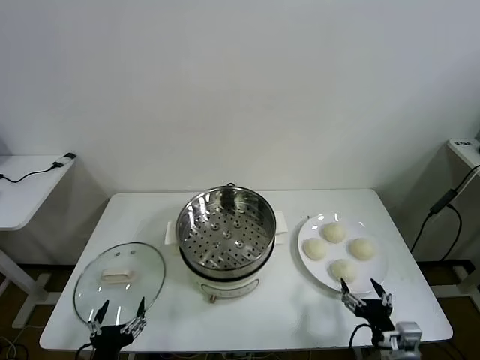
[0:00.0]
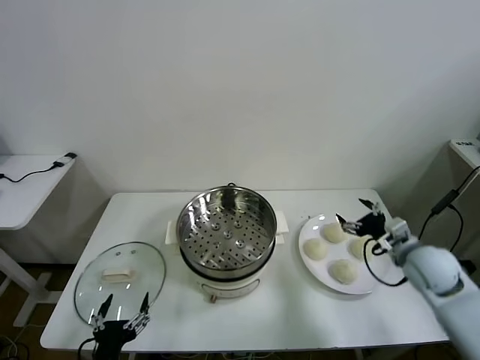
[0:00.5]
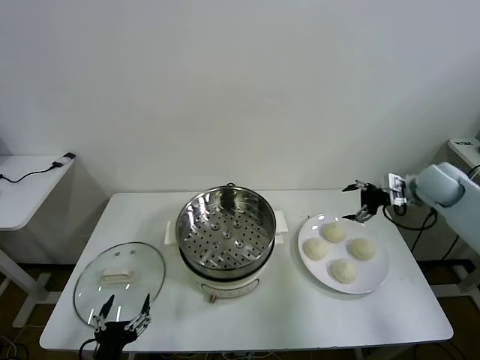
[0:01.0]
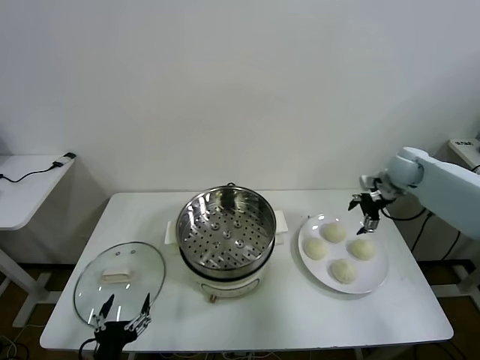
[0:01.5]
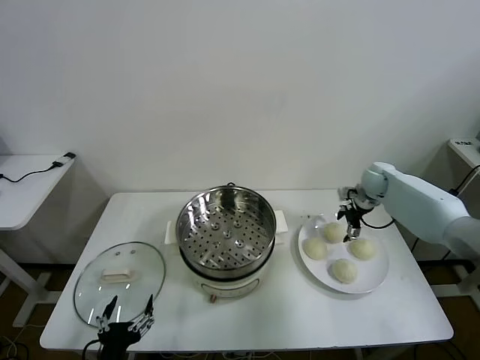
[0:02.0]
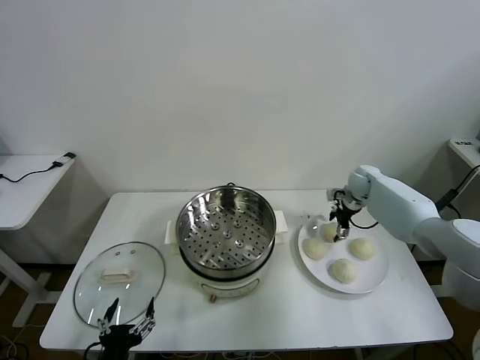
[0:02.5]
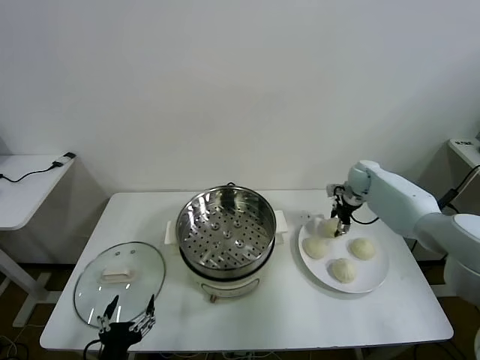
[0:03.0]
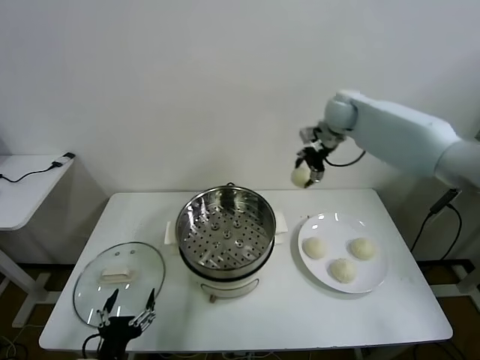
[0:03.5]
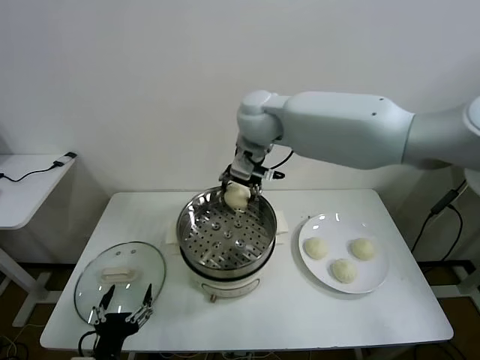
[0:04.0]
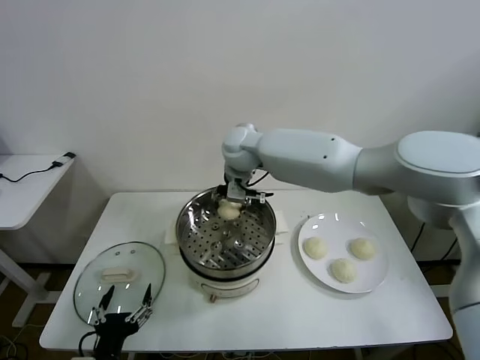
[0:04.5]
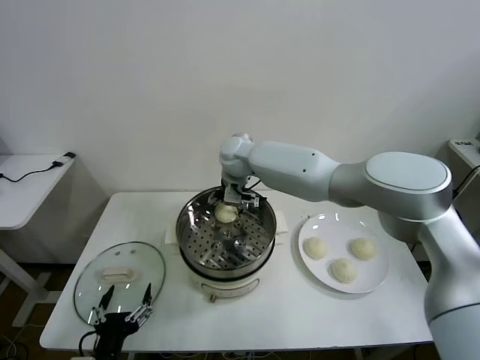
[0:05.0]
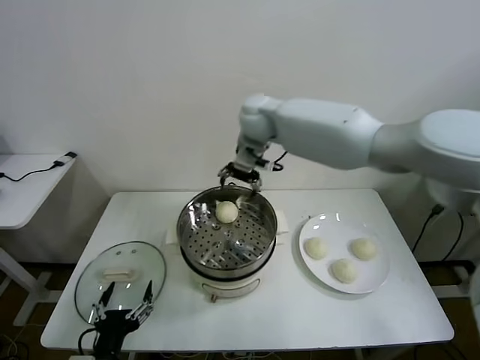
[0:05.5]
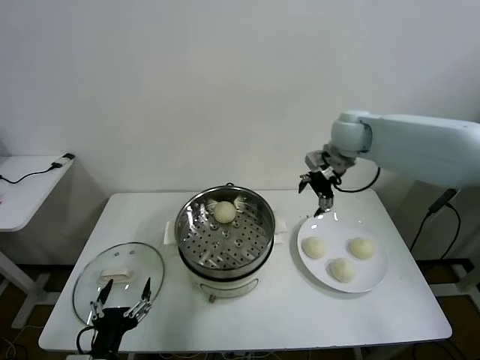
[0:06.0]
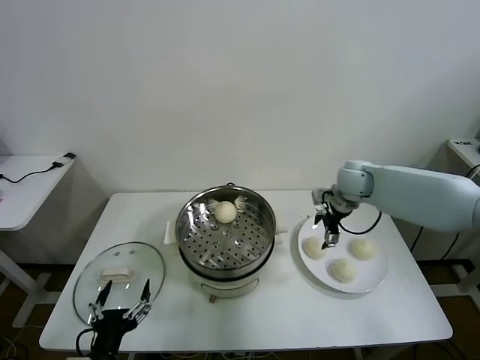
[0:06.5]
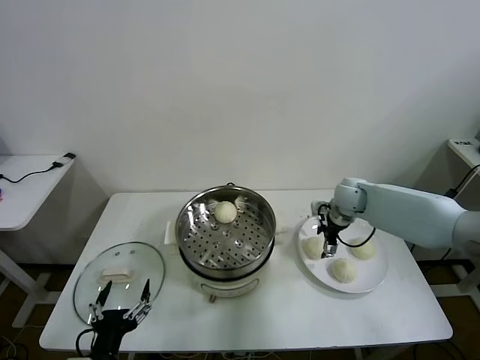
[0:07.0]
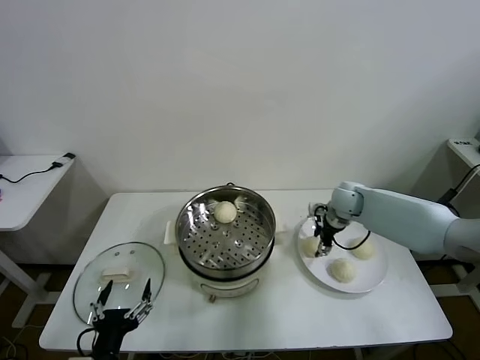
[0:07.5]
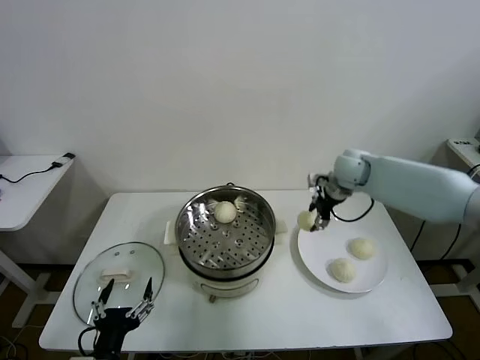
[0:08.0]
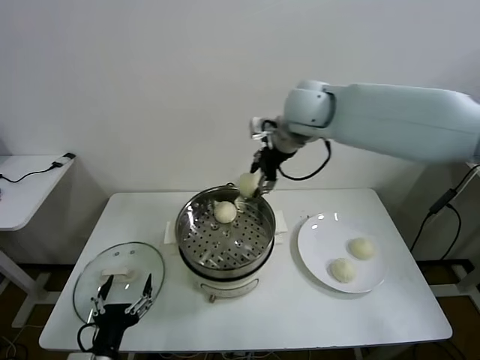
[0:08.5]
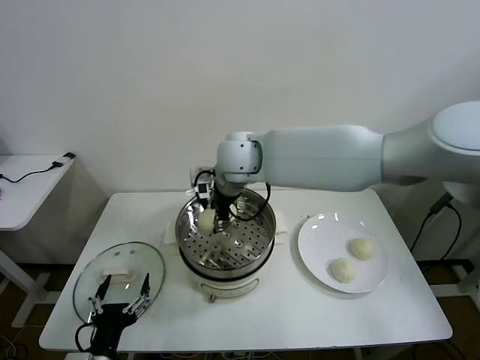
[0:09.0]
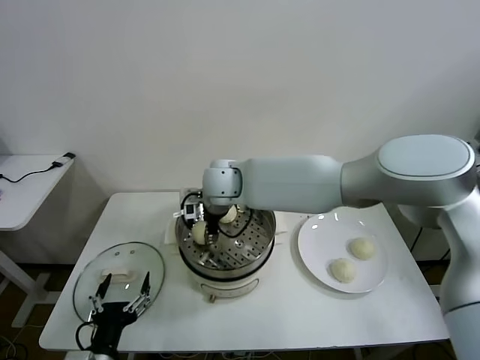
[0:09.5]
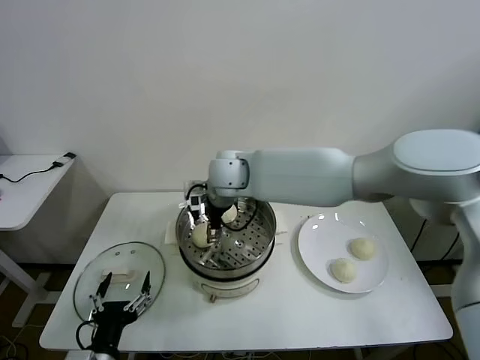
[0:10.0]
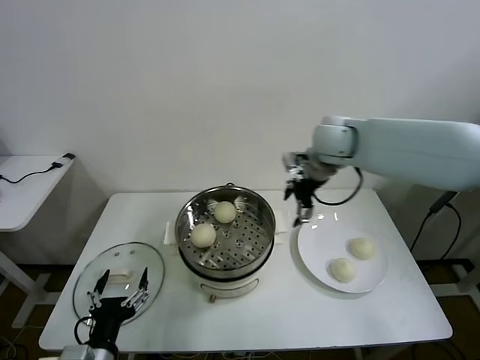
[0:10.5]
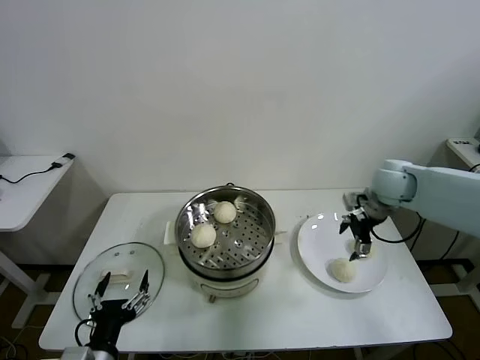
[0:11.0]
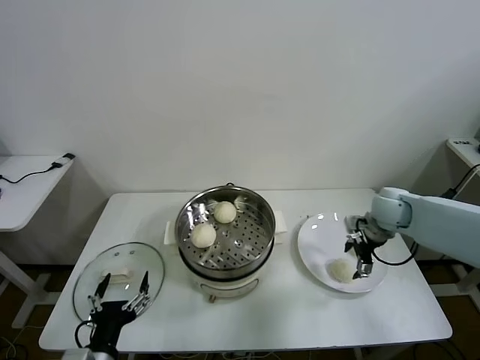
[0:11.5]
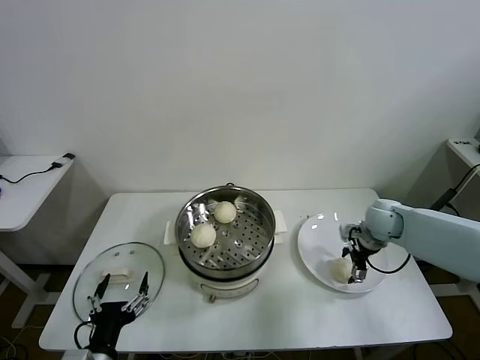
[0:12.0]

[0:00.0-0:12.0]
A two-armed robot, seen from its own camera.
Task of the whole recording: take steamed baozi put them in steamer then cover it.
Step, 0:00.0 to 0:02.5: Grasp the baozi in the plate with right gripper.
Step, 0:03.0 to 0:05.0: Place the baozi on the steamer with right gripper.
Step, 0:05.5 to 0:07.0: Grasp the baozi in the plate with right gripper.
Step, 0:07.5 to 0:09.5: Place the baozi on the steamer with right gripper.
0:02.0 to 0:04.0: The right gripper moves to the left and upward, some 40 cm, and closes.
0:04.0 to 0:06.0: The right gripper is displaced to the right by some 25 cm, and opens up.
0:06.0 to 0:08.0: The right gripper moves some 15 cm downward and comes back, and closes its fingers.
0:08.0 to 0:10.0: The right gripper moves to the left, roughly 25 cm, and opens its fingers.
0:10.0 to 0:12.0: The right gripper moves to the right and downward, about 40 cm.

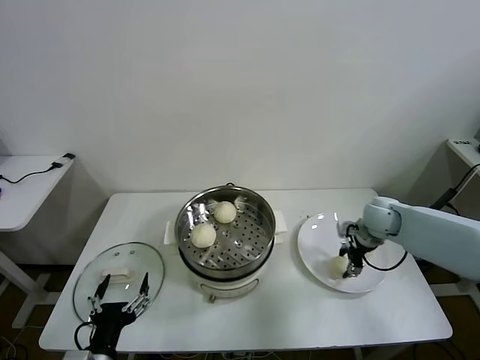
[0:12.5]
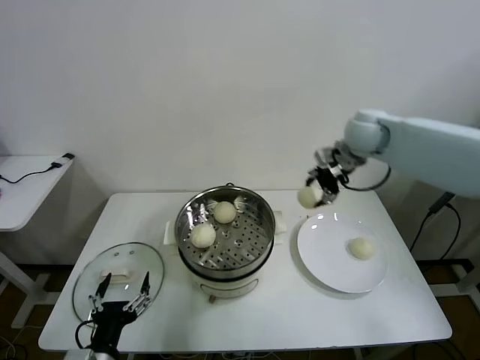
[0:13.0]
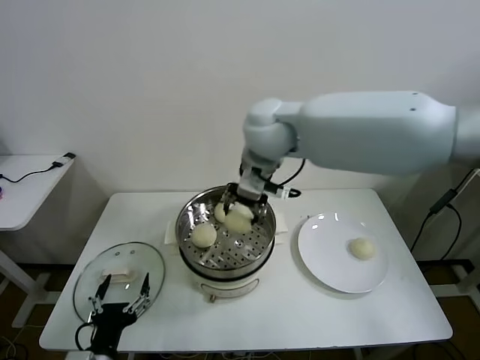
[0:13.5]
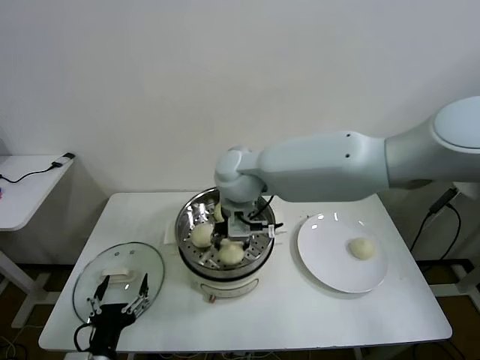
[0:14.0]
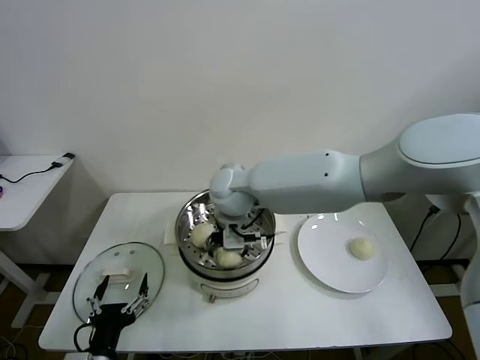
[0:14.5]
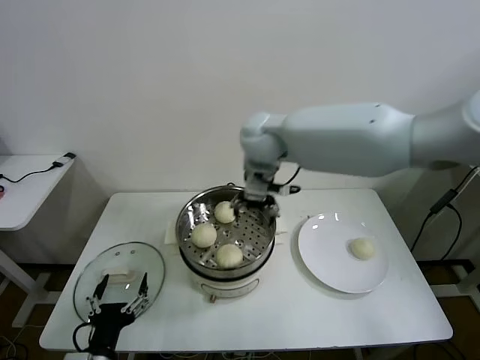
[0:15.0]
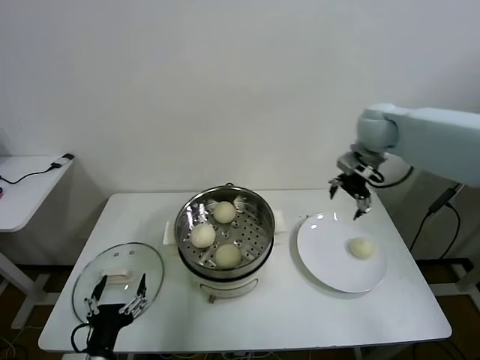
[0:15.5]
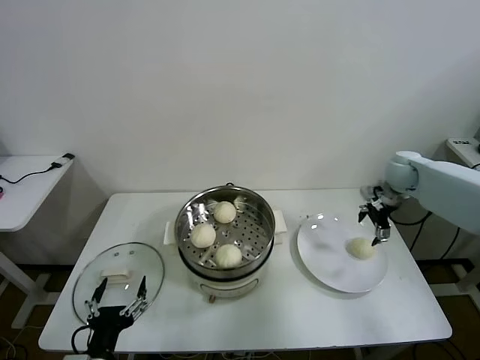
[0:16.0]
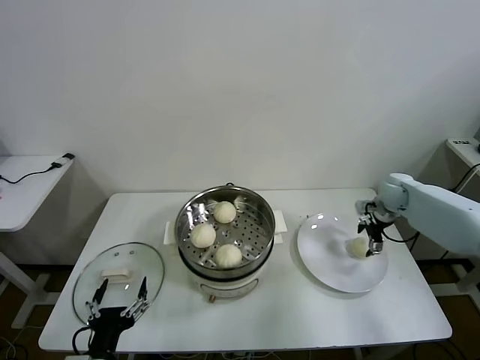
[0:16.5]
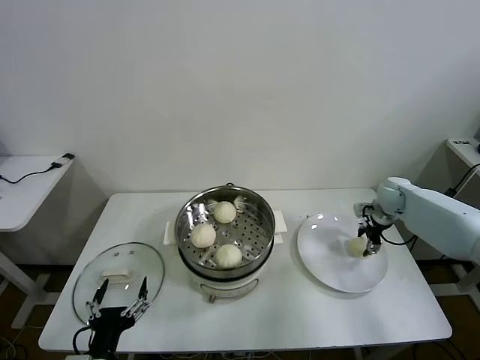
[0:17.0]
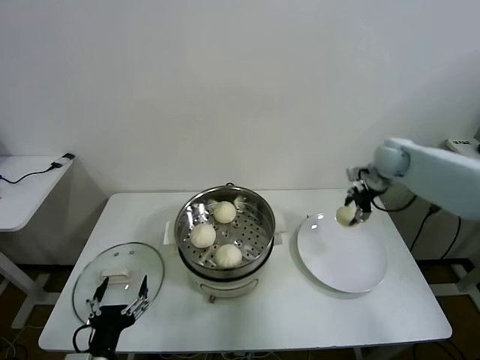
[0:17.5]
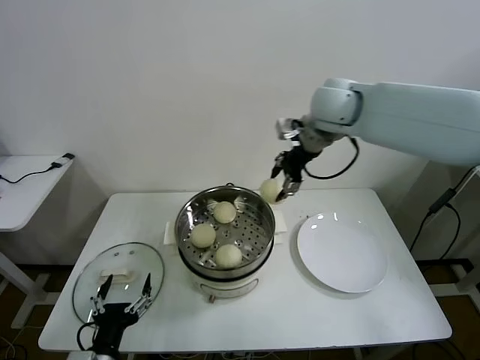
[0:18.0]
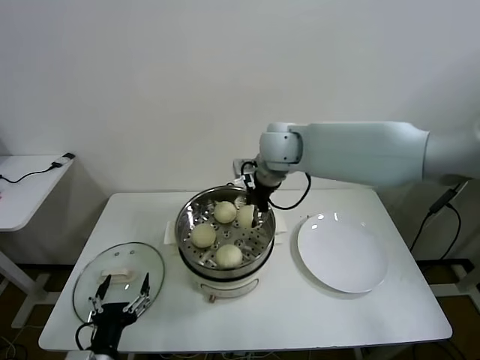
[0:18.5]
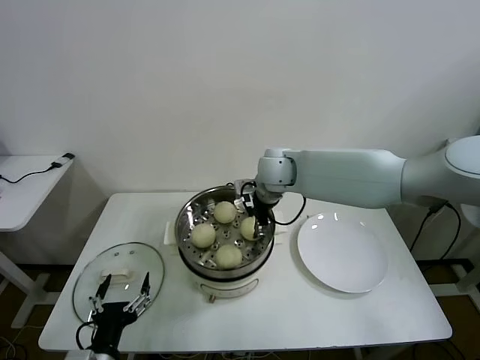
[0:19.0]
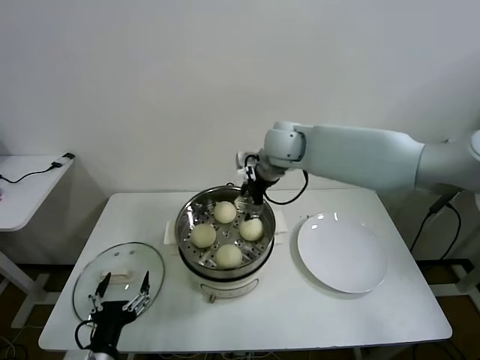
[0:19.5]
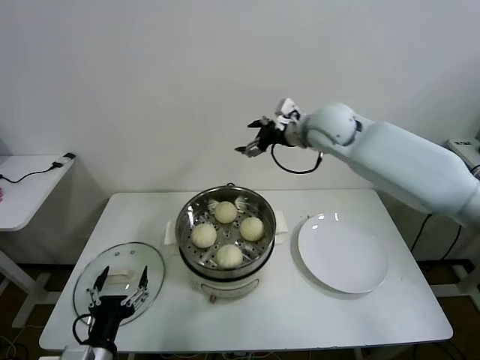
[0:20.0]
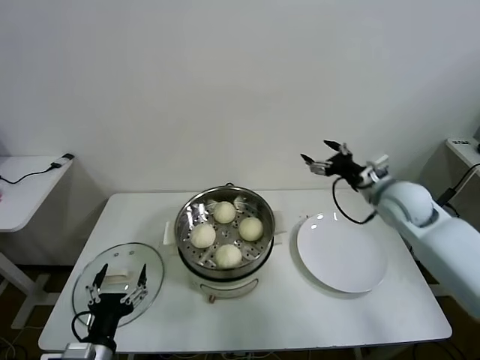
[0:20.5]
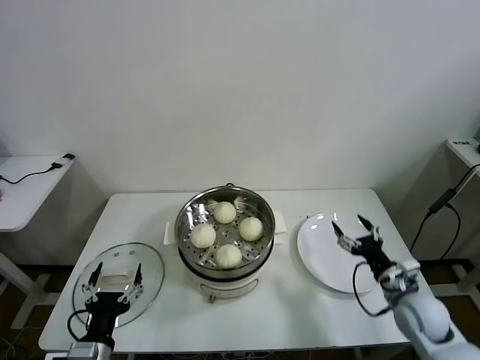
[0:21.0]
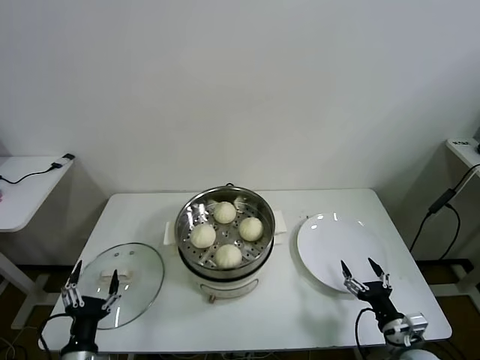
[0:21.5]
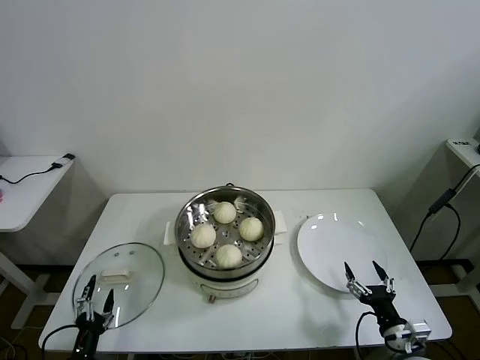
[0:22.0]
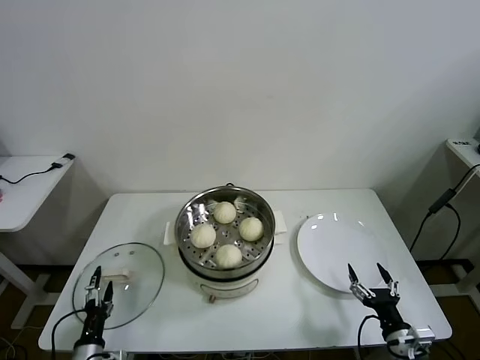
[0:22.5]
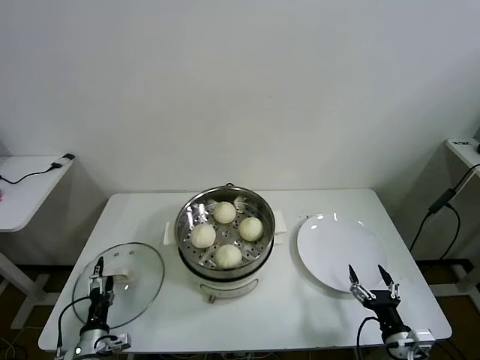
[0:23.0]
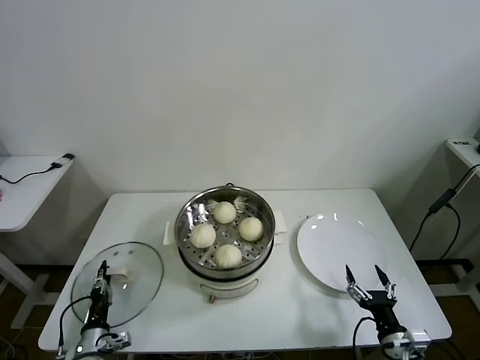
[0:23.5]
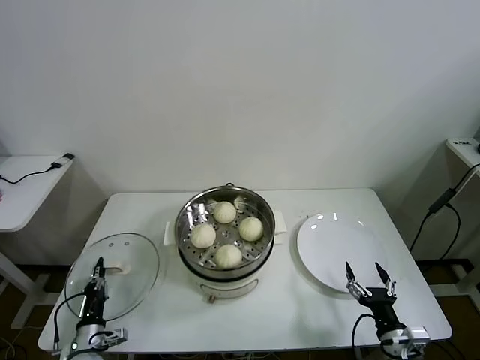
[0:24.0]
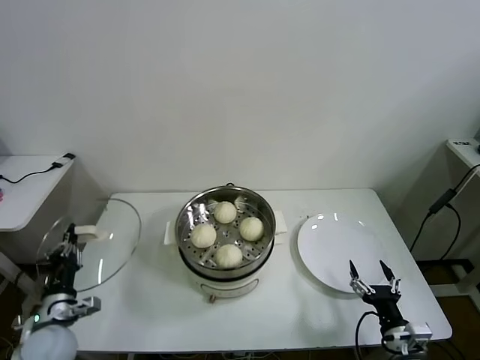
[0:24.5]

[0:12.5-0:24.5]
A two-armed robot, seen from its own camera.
Task of the whole recording: take steamed baozi put them in steamer then cover it.
Step, 0:12.5 to 0:14.5: Place the baozi on the steamer with right gripper.
Step, 0:15.0 to 0:17.0: Grasp the baozi in the plate with right gripper.
Step, 0:17.5 to 0:19.0: Place the baozi on the steamer with right gripper.
Step, 0:19.5 to 0:23.5: Grasp the pot lid with left gripper.
0:12.5 to 0:14.5: The right gripper shifts approximately 35 cm to the left, and opens its fingers.
0:14.5 to 0:16.5: The right gripper is displaced to the right by approximately 40 cm.
0:16.5 to 0:18.5: The right gripper heads to the left and upward, covering roughly 40 cm, and closes up.
0:18.5 to 0:20.5: The right gripper travels to the right by approximately 25 cm, and opens its fingers.
0:20.5 to 0:22.5: The right gripper moves backward and downward, some 35 cm. Meanwhile the left gripper is displaced downward and to the left by some 20 cm.
0:22.5 to 0:24.5: The left gripper moves upward and forward, roughly 10 cm, and closes its fingers.

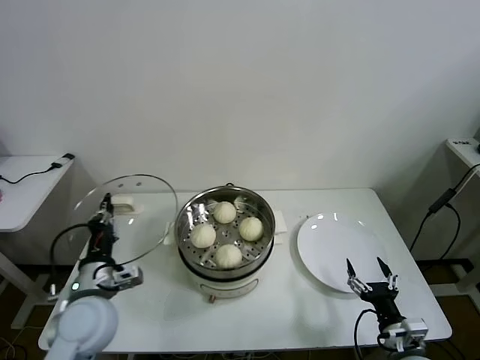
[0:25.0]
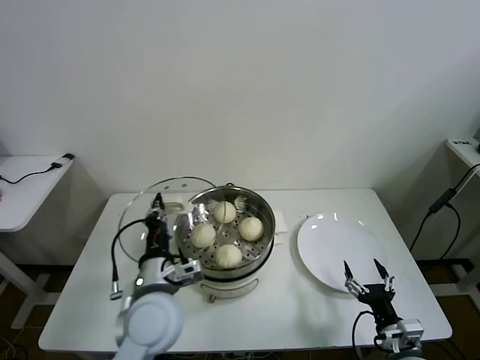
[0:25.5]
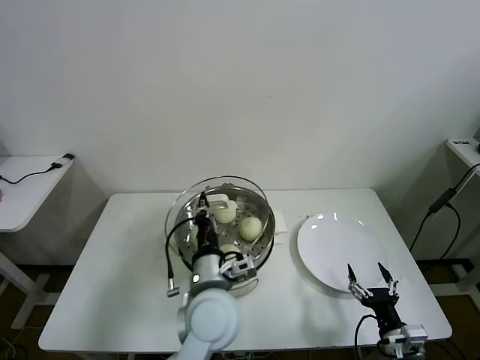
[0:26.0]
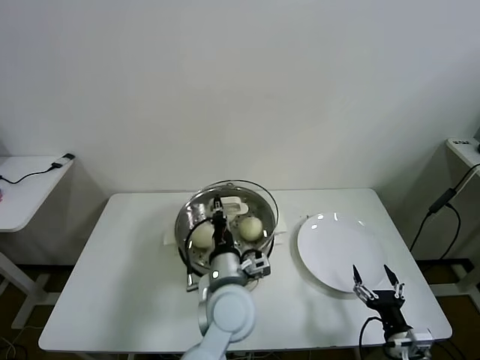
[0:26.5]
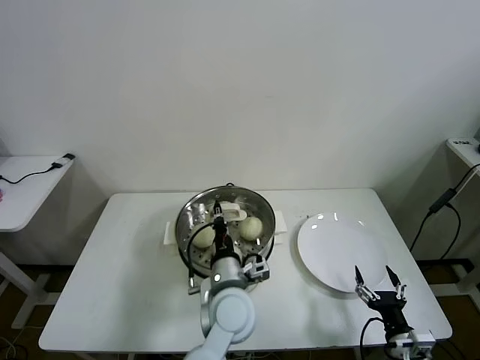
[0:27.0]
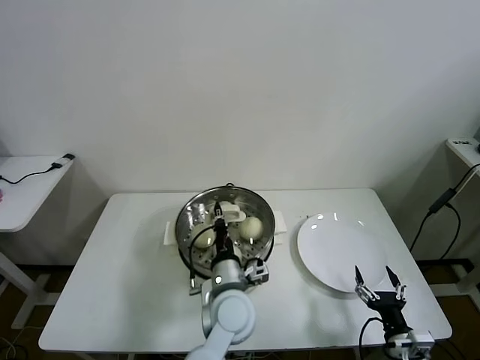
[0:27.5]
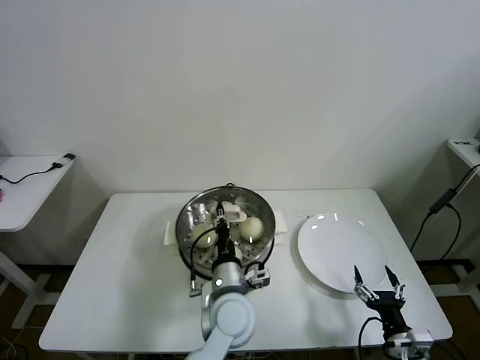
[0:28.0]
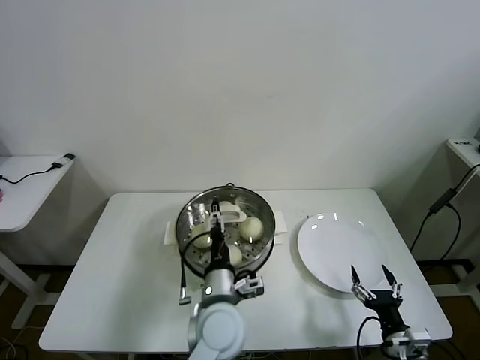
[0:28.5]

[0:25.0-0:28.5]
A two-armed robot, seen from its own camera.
Task of the whole recording: take steamed baozi put them in steamer then cover it.
Step, 0:25.0 to 0:28.0: Place the pot lid on the steamer with left gripper.
0:25.0 to 0:27.0: The left gripper shifts approximately 25 cm to the right.
0:27.0 to 0:28.5: The left gripper opens.
